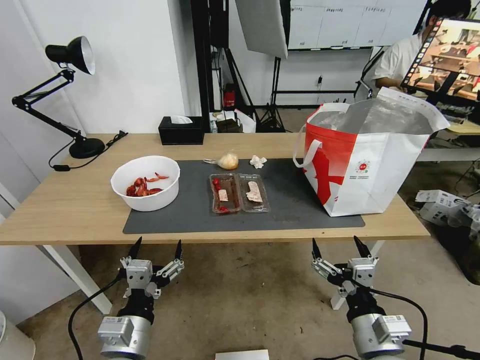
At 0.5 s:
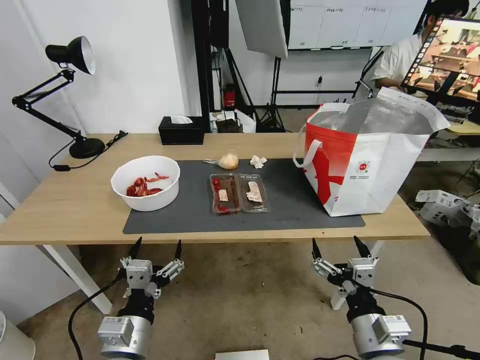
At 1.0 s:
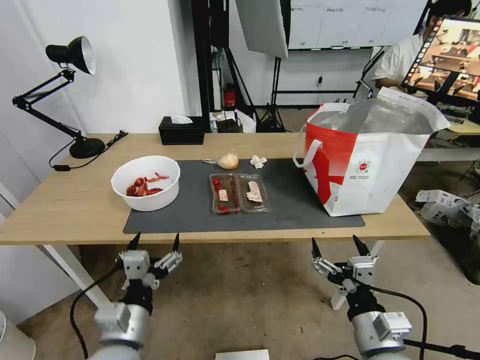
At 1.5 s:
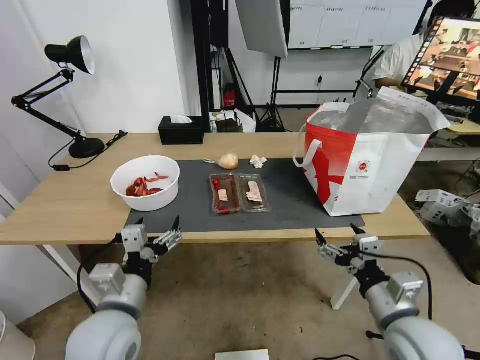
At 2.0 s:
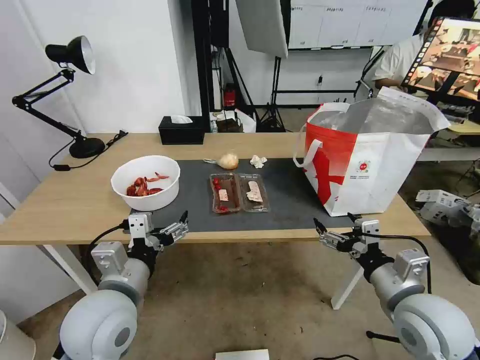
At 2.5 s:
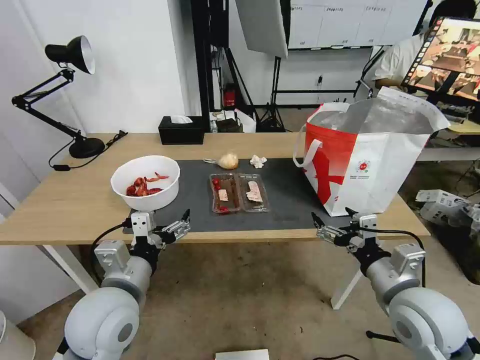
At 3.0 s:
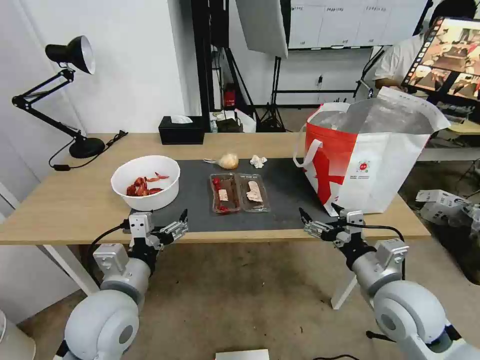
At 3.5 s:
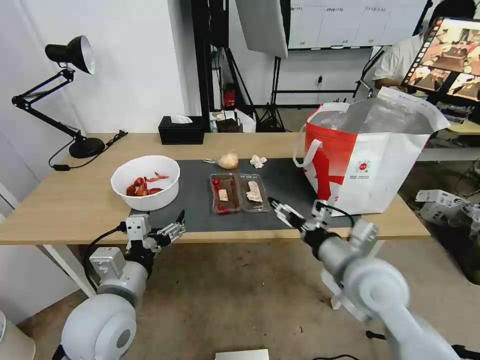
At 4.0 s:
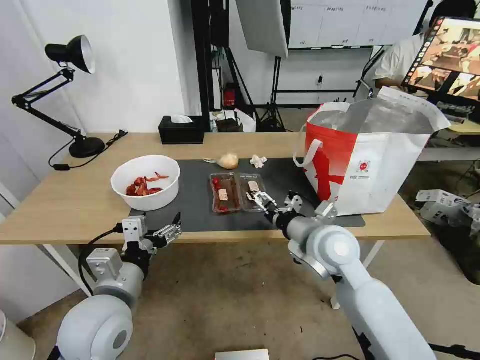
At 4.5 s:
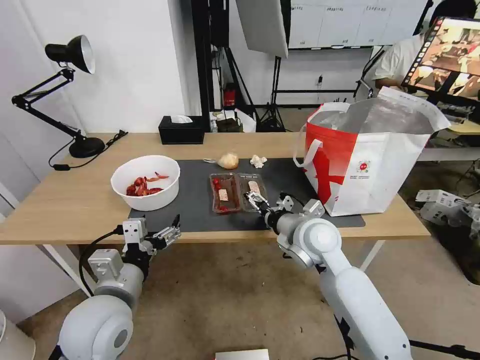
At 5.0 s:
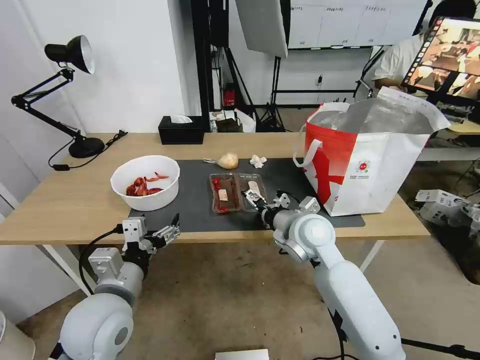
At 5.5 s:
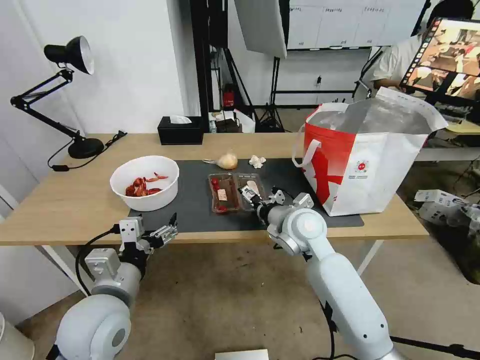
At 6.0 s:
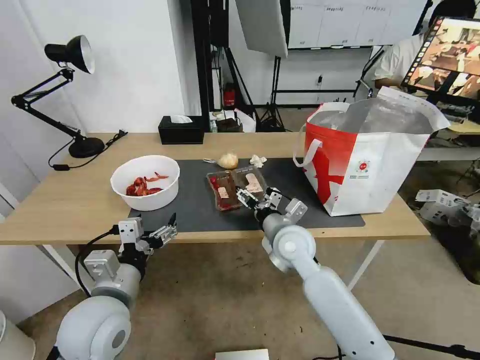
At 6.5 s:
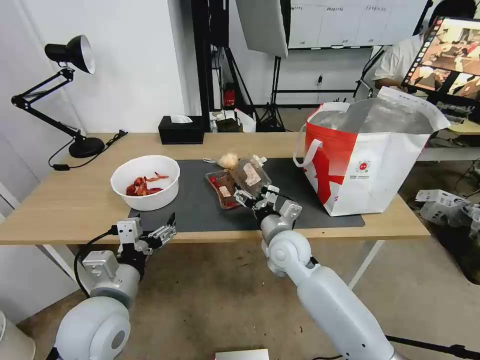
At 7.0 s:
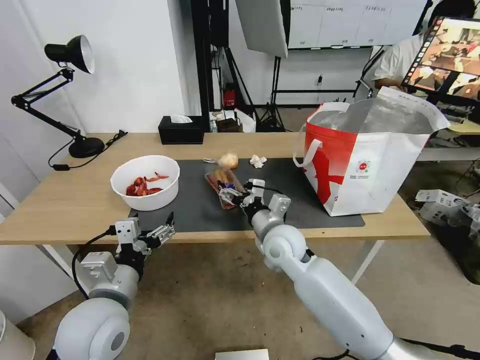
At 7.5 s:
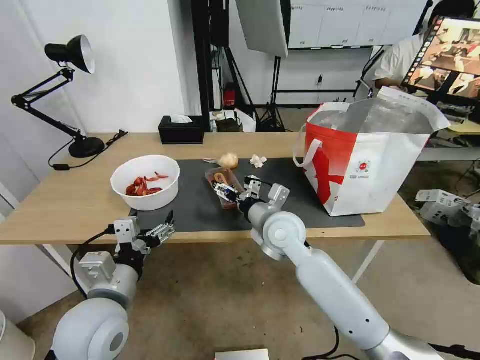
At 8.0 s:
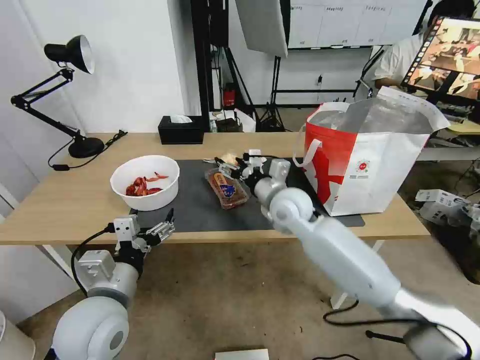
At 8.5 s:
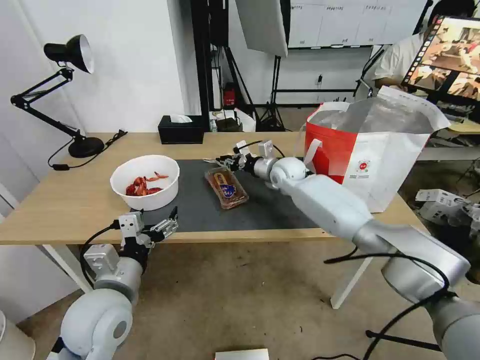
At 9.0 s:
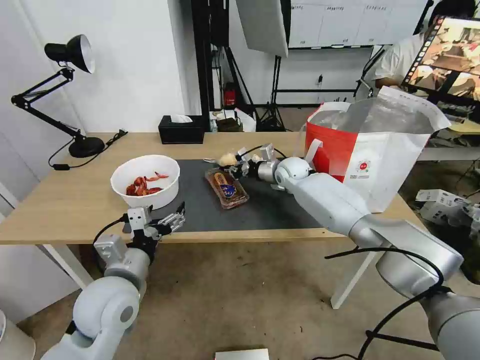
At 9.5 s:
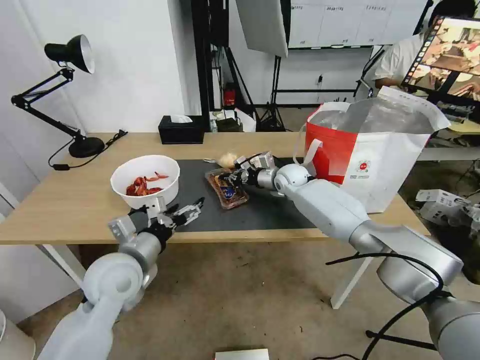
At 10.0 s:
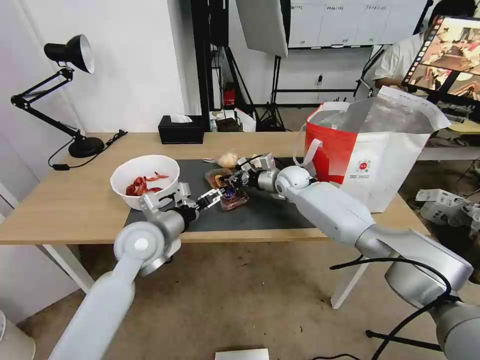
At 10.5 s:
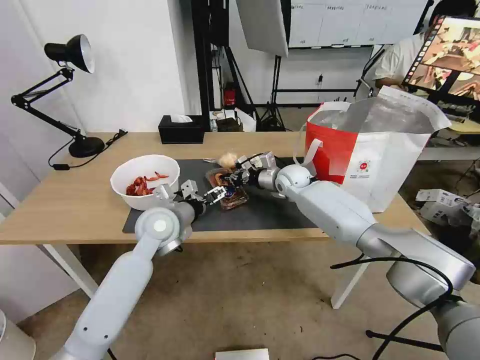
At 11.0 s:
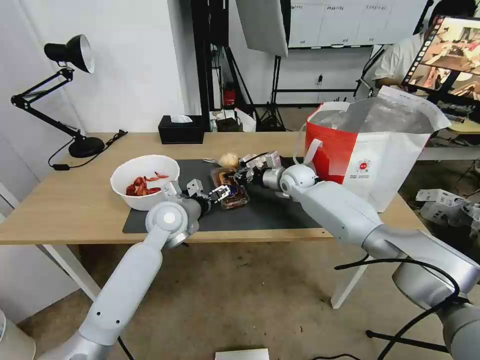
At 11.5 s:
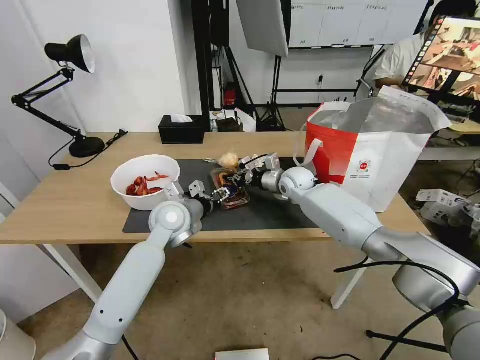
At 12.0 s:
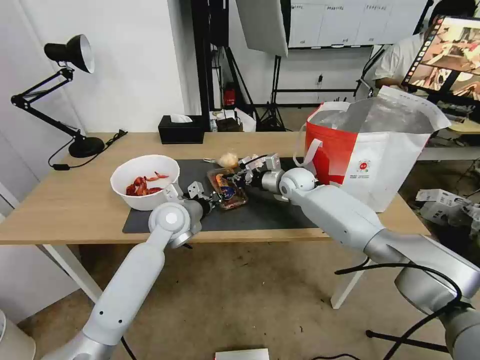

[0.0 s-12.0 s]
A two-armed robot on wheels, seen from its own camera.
Task of the whole recording: Pick up the trash from the table and place it into the takeout bag.
2.0 to 4.0 s: The right gripper is displaced forward and to the left by about 20 cm.
4.0 to 6.0 s: The right gripper is displaced to the left and downward by some 10 cm.
6.0 to 8.0 s: The right gripper shifts roughly 10 cm forward and upward.
8.0 to 10.0 s: Both grippers travel together forward, approximately 15 cm. The right gripper closes up.
10.0 to 12.0 s: The left gripper goes some 10 cm forward, and closes.

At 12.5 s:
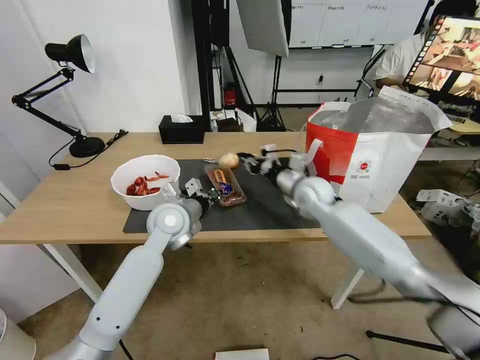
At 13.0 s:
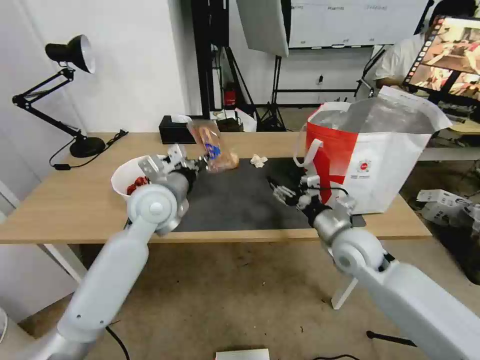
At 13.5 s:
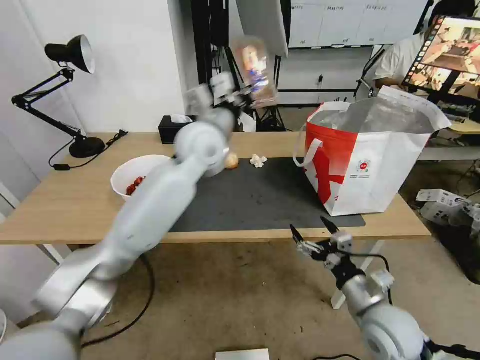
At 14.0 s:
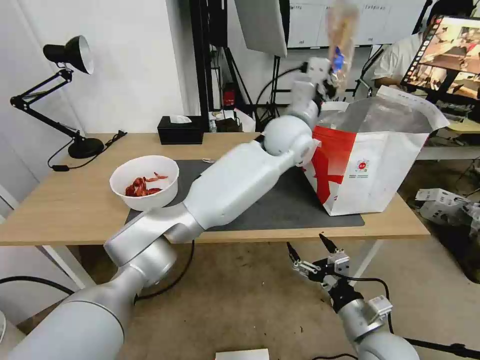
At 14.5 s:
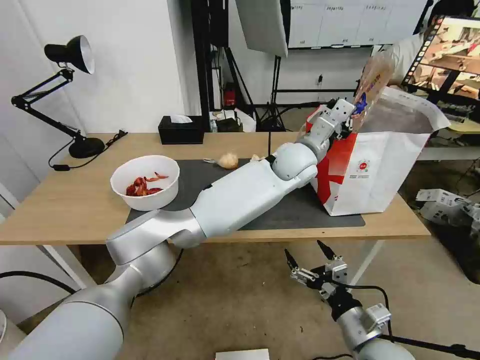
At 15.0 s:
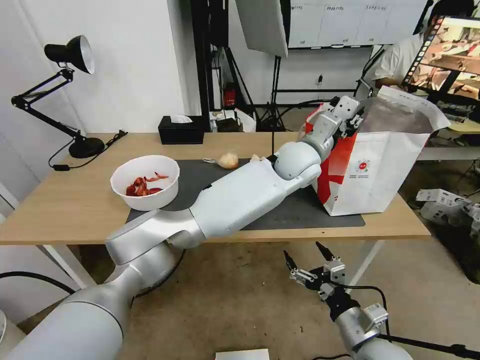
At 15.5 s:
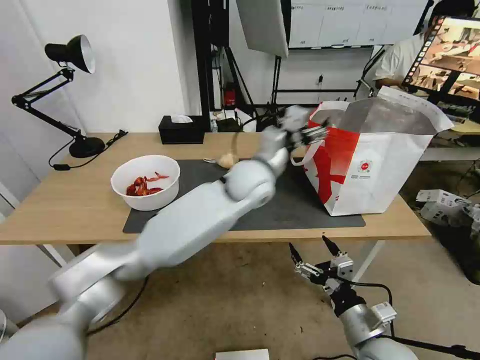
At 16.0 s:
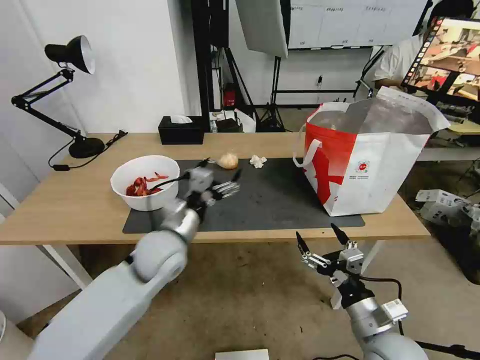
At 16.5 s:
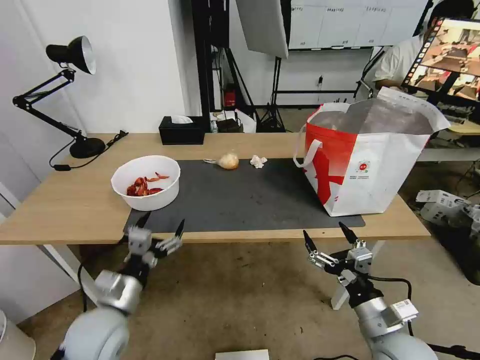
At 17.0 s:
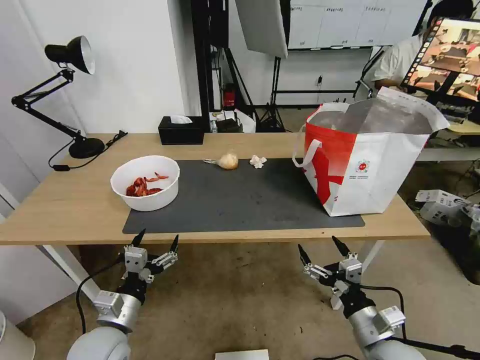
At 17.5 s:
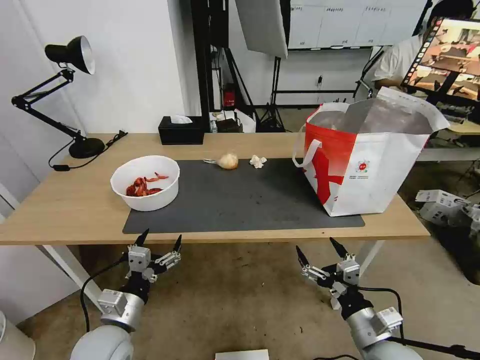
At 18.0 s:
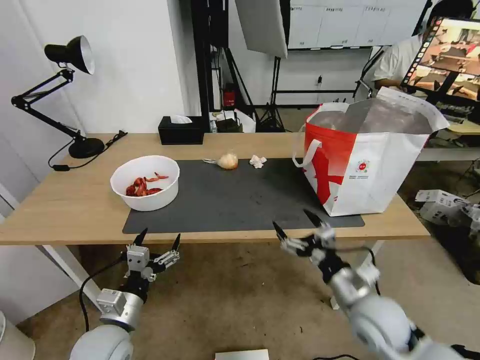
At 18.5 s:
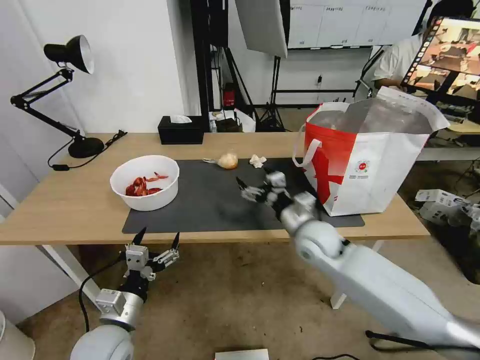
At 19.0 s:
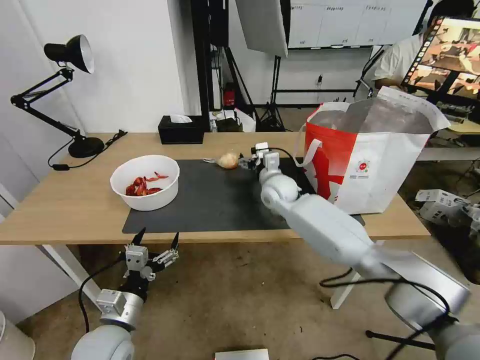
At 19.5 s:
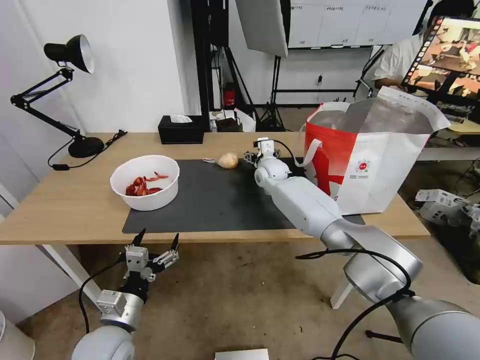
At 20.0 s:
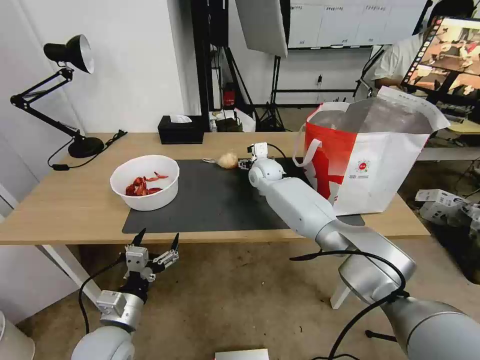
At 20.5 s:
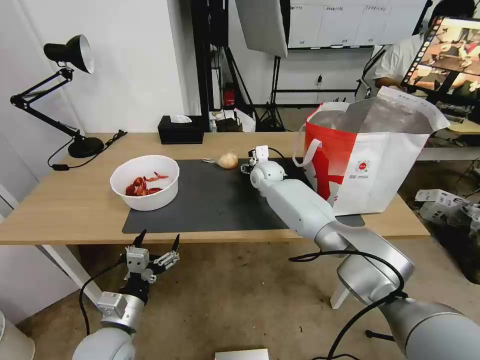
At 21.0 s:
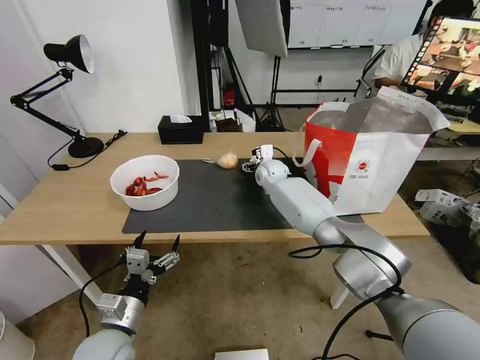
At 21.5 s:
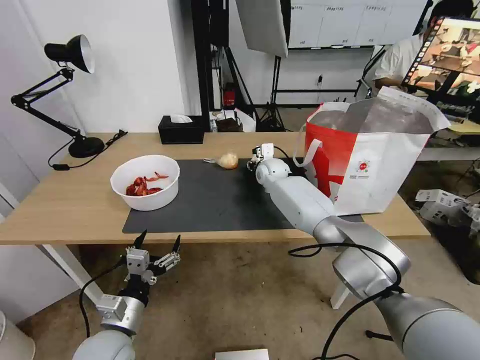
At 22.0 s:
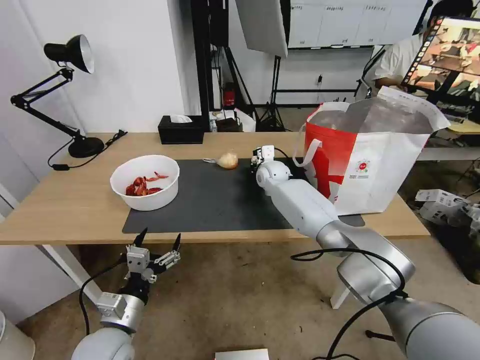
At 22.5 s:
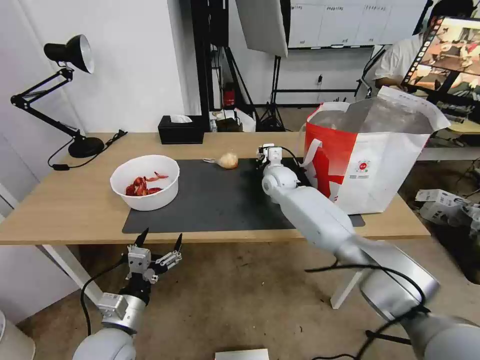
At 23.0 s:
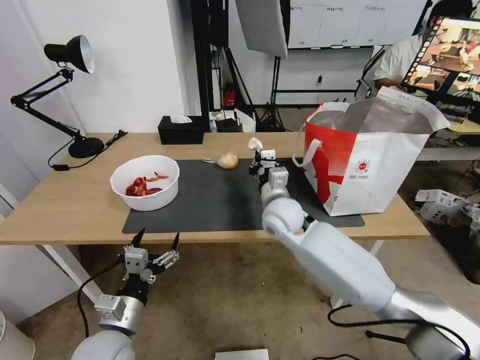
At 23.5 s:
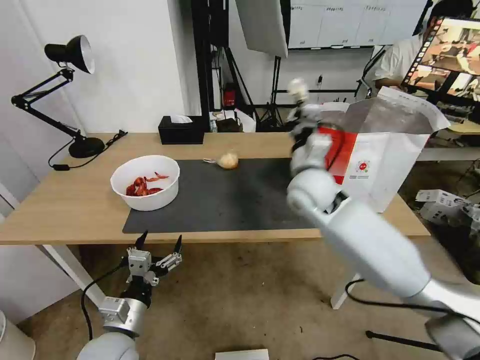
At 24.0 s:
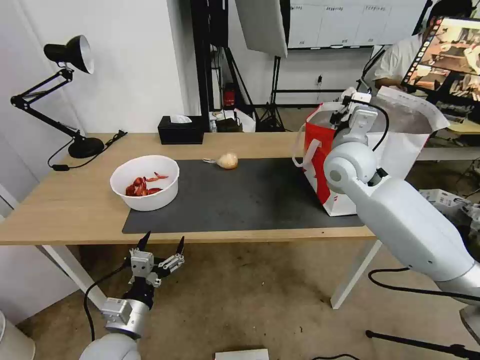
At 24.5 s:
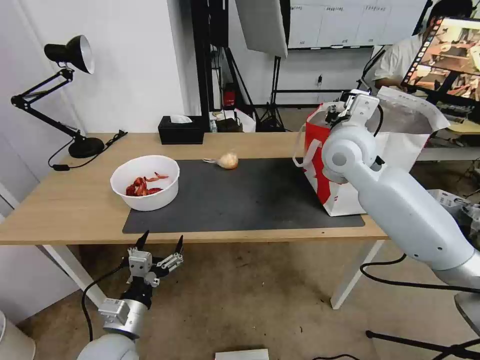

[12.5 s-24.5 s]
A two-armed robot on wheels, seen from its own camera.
Task of the whole recording: Pick up the trash from the table and place it into the takeout bag.
12.5 to 14.5 s: The left gripper heads to the right, covering about 30 cm. The right gripper is displaced backward by some 35 cm, and opens its fingers.
14.5 to 16.5 s: The left gripper travels to the left, backward and downward by roughly 50 cm, and opens.
16.5 to 18.5 s: The right gripper travels forward and to the left by roughly 25 cm.
18.5 to 20.5 s: The right gripper goes some 20 cm forward.
20.5 to 22.5 s: The right gripper closes.
22.5 to 24.5 s: The right gripper travels upward, backward and to the right by about 25 cm, and opens up.

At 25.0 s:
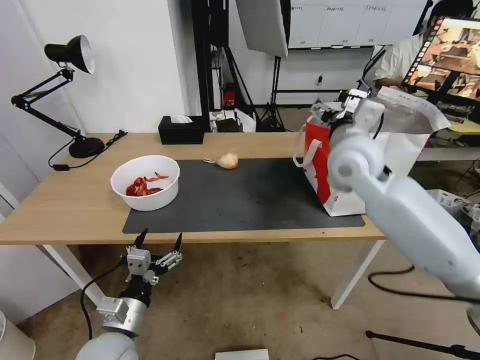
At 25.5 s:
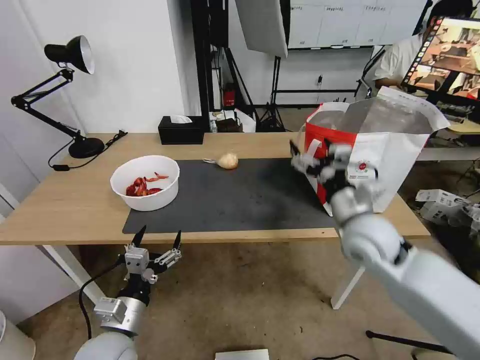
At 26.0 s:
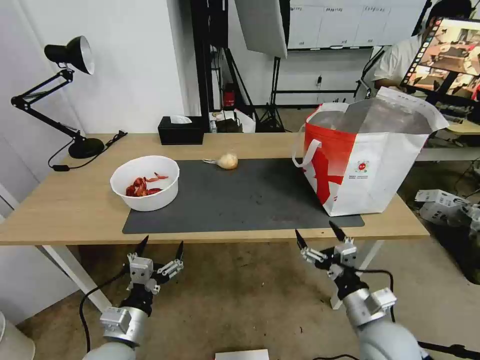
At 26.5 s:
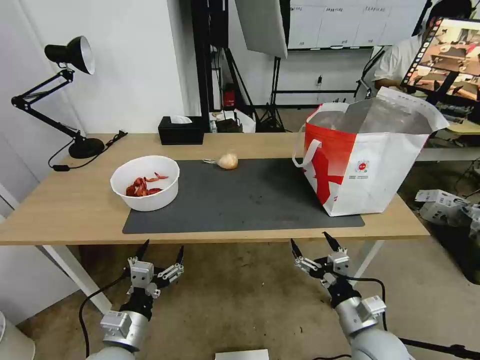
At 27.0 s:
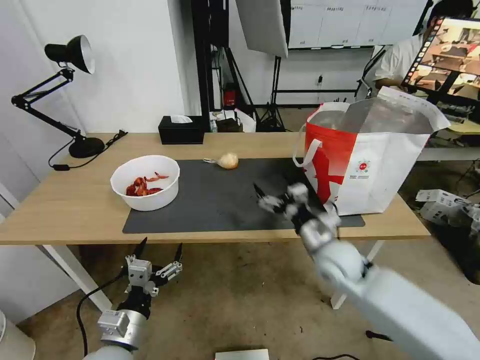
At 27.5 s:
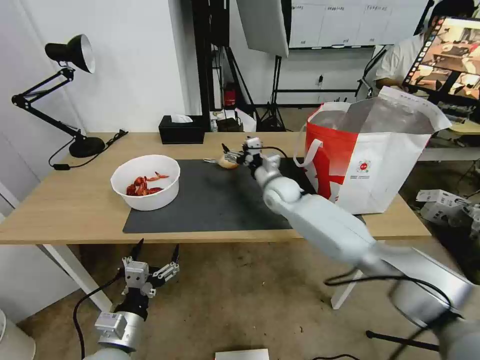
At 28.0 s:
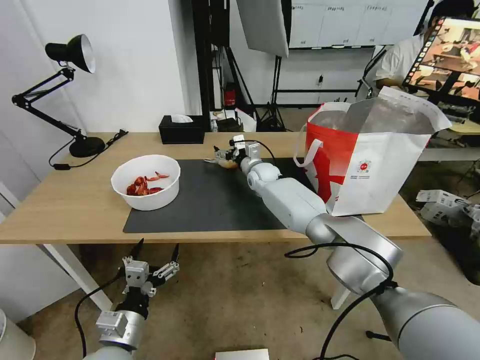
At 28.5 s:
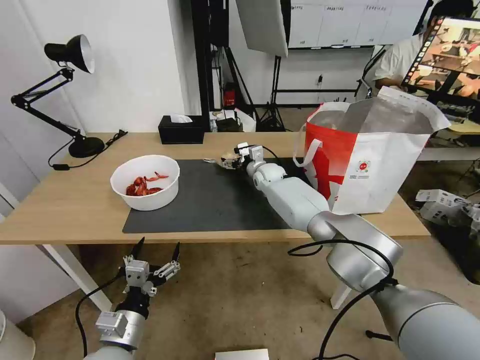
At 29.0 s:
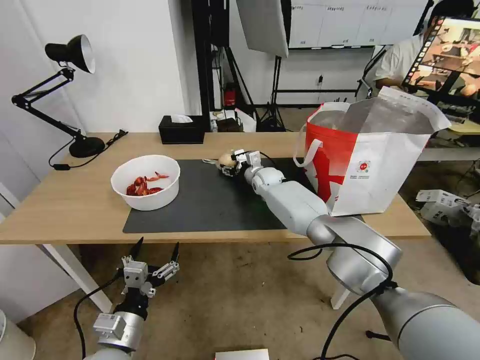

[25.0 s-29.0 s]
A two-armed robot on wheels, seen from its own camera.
Task of the whole recording: Pick up the trash from the table and place it into the takeout bag.
25.0 to 27.0 s: The right gripper goes some 25 cm downward and backward.
27.0 to 29.0 s: The right gripper heads forward and to the left, covering some 30 cm.
